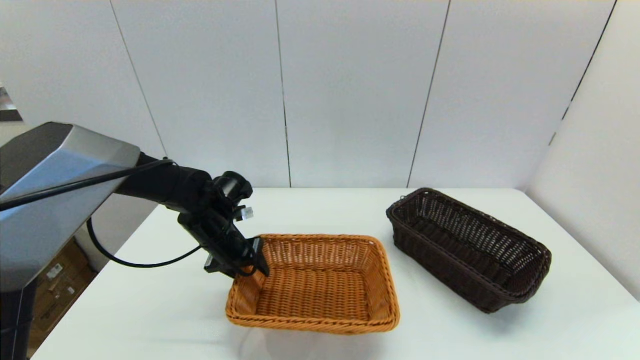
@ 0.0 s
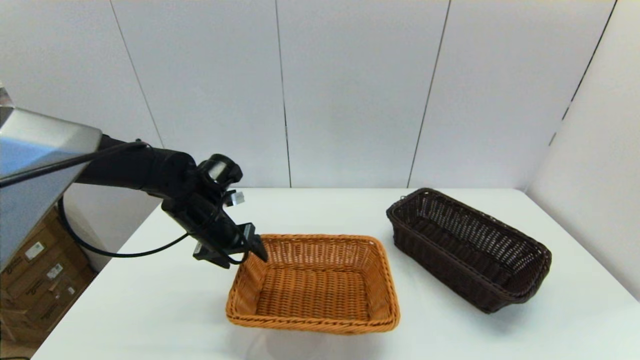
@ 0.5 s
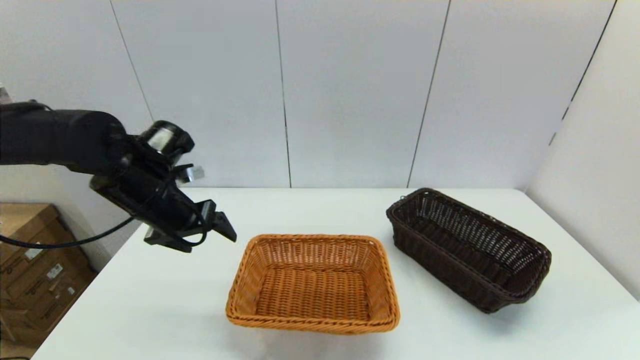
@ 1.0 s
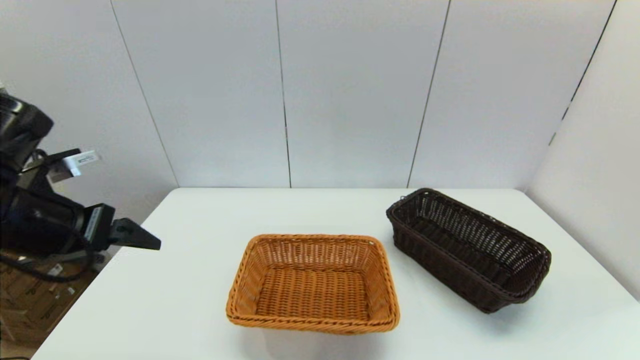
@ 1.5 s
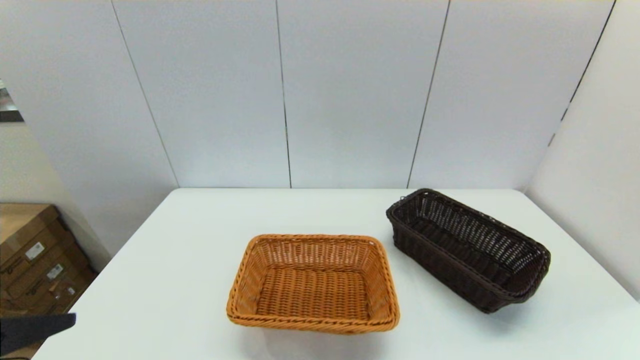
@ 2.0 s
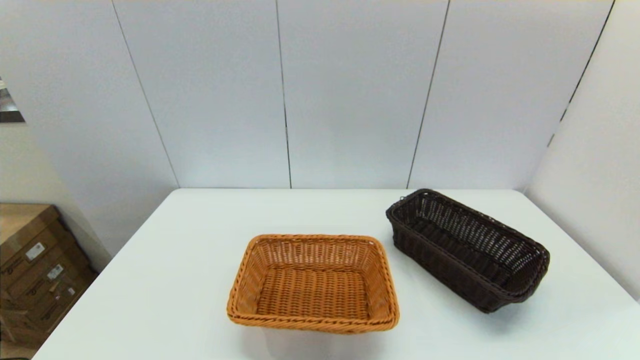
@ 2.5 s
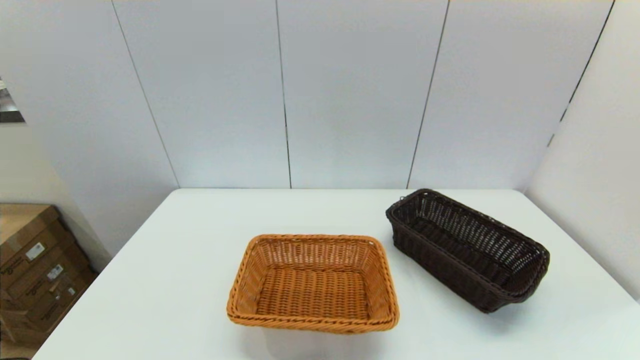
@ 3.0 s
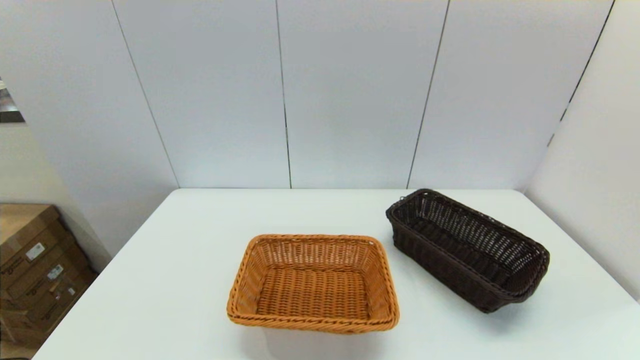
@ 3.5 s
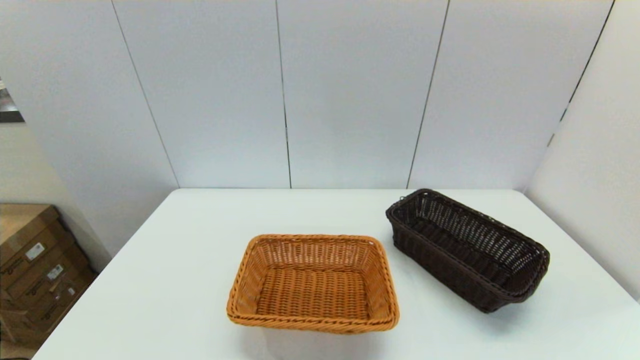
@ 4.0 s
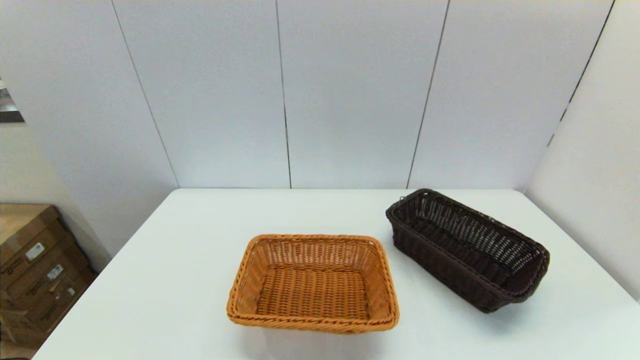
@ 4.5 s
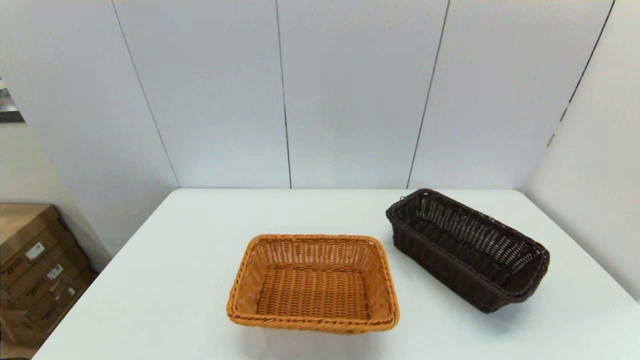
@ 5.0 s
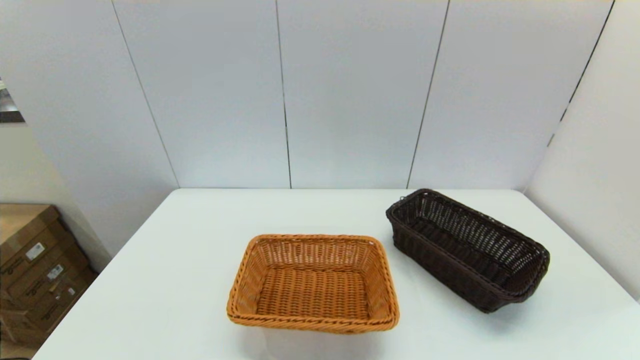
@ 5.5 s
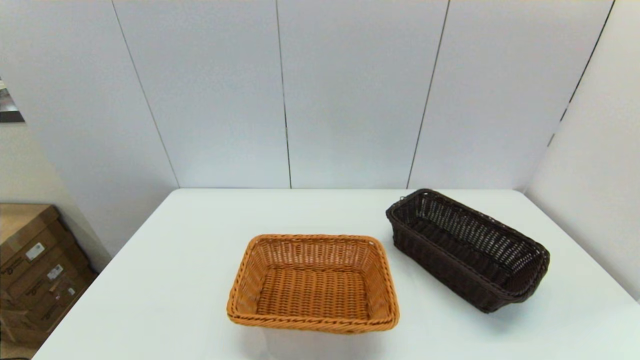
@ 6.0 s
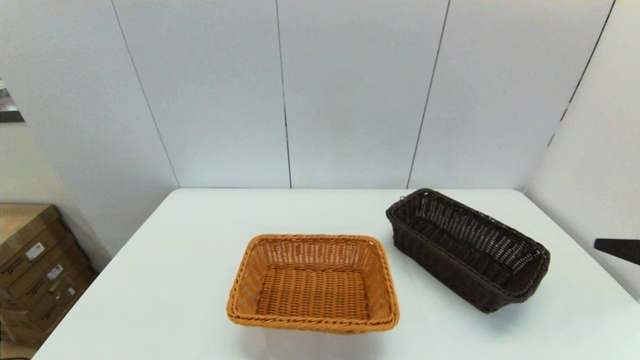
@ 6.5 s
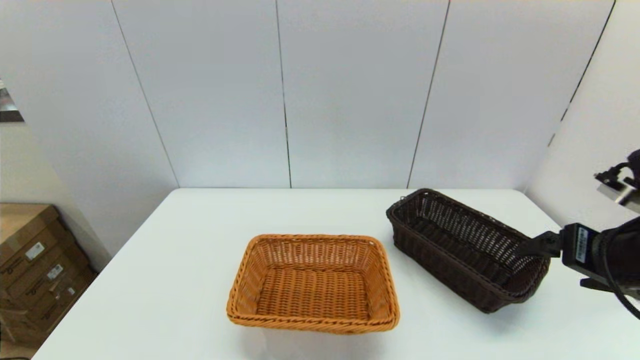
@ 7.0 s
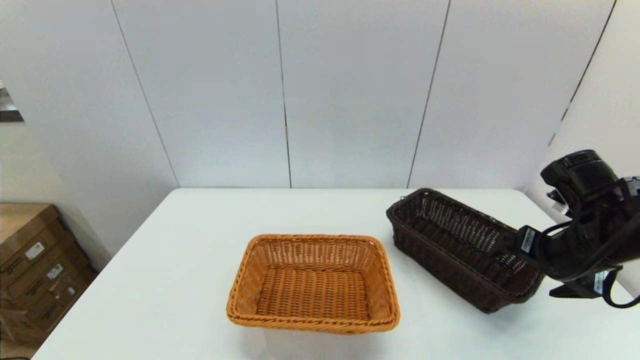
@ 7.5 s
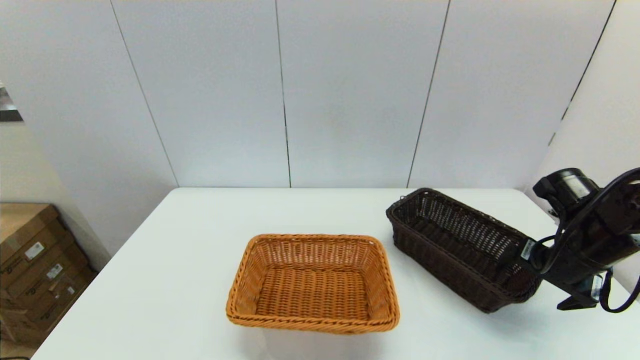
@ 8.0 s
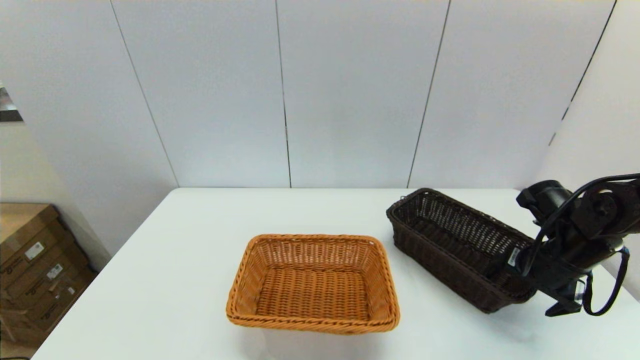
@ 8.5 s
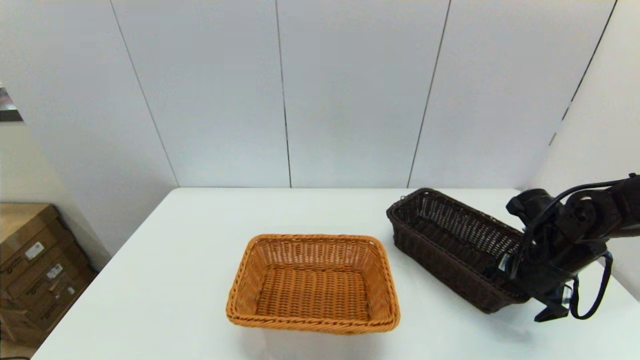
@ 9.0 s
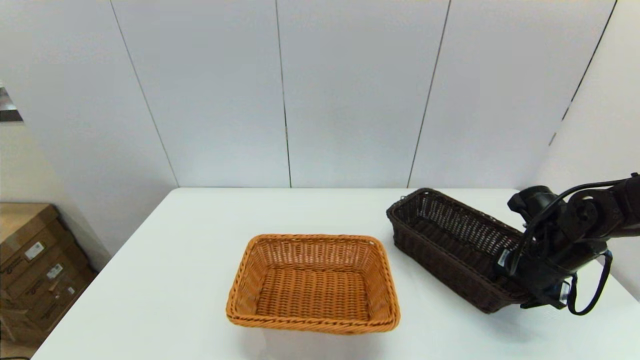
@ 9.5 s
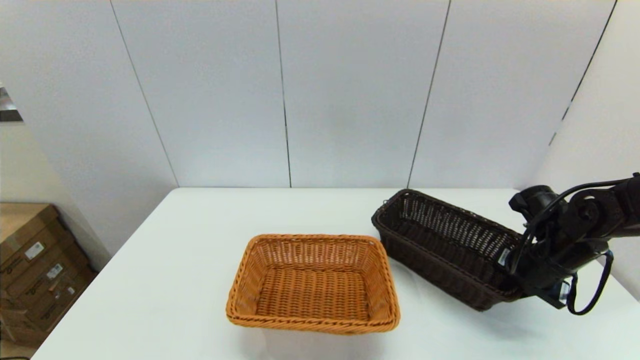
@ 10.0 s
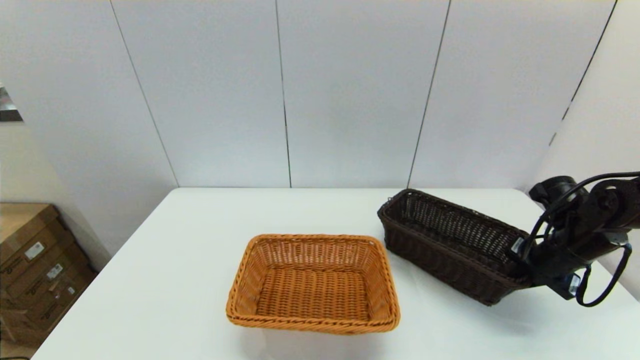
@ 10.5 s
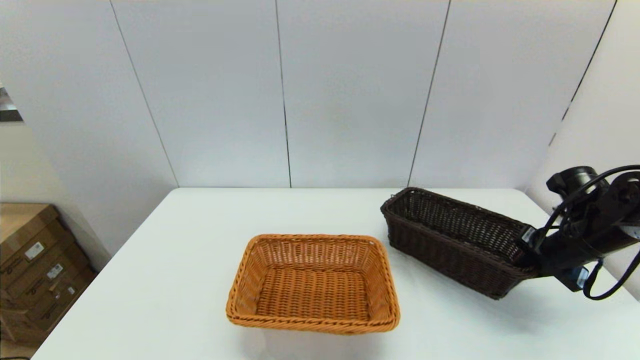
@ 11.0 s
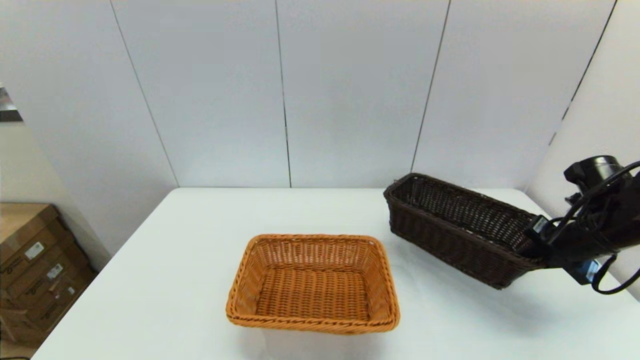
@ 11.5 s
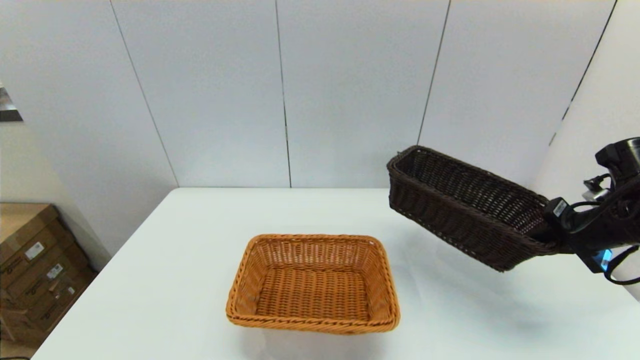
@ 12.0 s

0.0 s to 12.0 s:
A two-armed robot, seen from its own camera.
Task of the whole recording: stack a basket on top of another basket.
Step, 1.0 to 9.5 s: Grasp the dark basket with the right gripper.
0.0 to 2.0 s: The left gripper shifts approximately 35 cm backward, upward and to the left, and opens its fingers.
6.0 to 8.0 s: The right gripper is displaced forward by roughly 25 cm.
8.0 to 10.0 s: The right gripper moves some 5 cm, and closes up.
10.0 to 12.0 s: The right gripper goes approximately 10 cm upward.

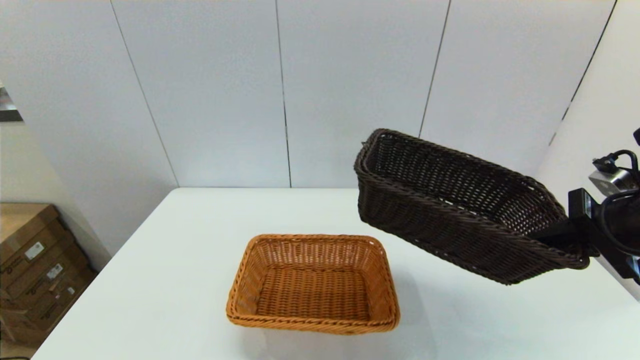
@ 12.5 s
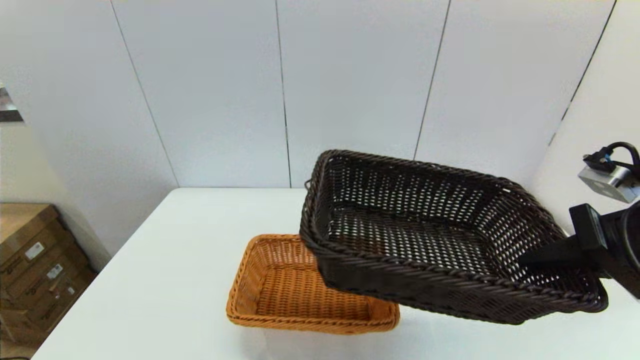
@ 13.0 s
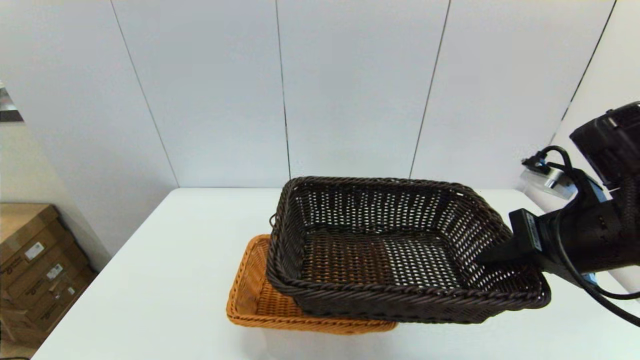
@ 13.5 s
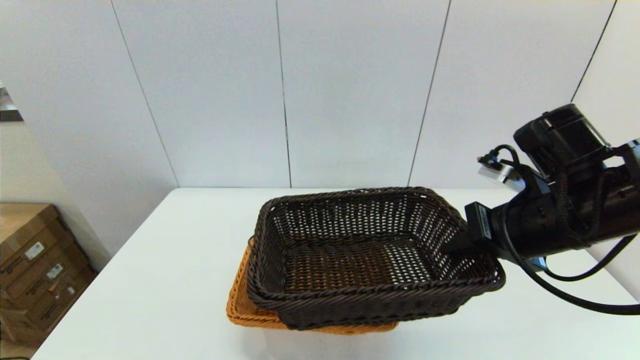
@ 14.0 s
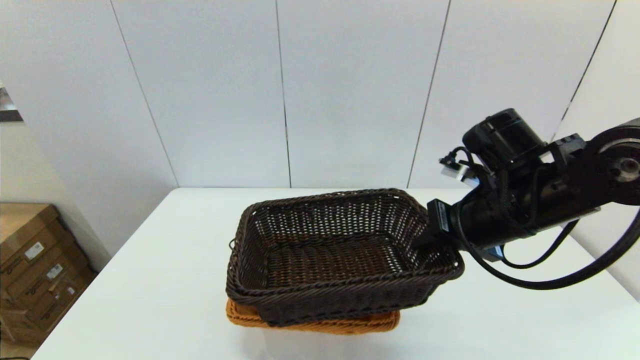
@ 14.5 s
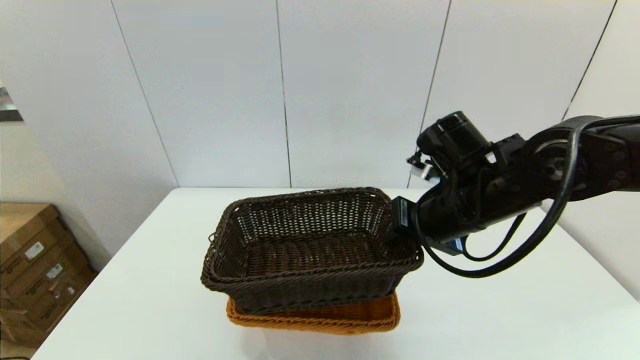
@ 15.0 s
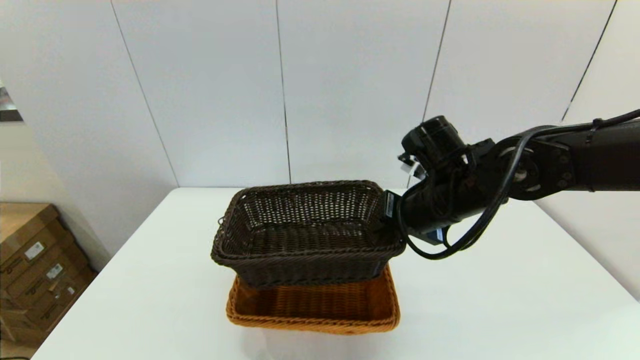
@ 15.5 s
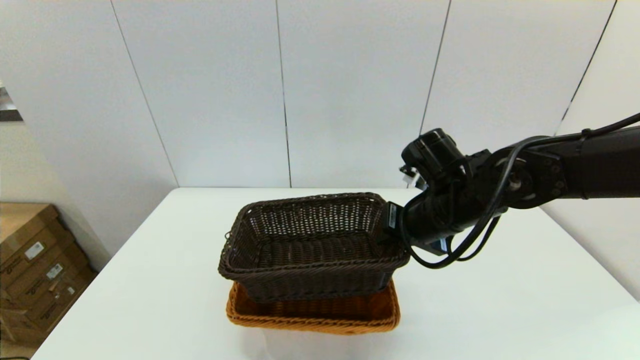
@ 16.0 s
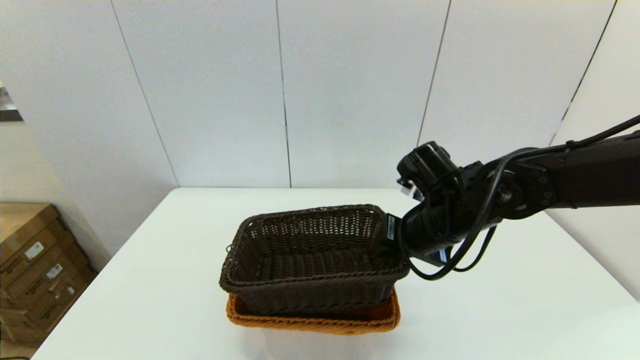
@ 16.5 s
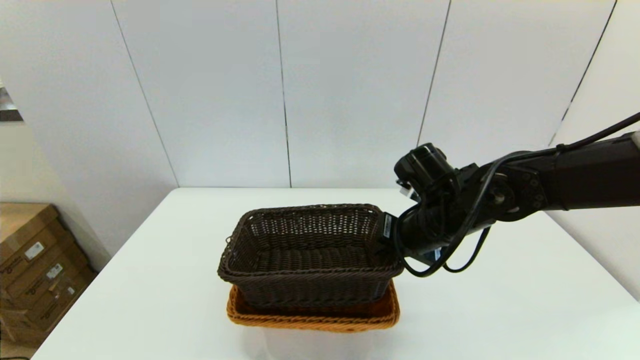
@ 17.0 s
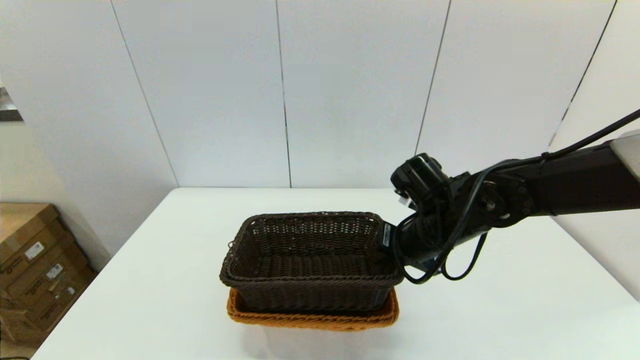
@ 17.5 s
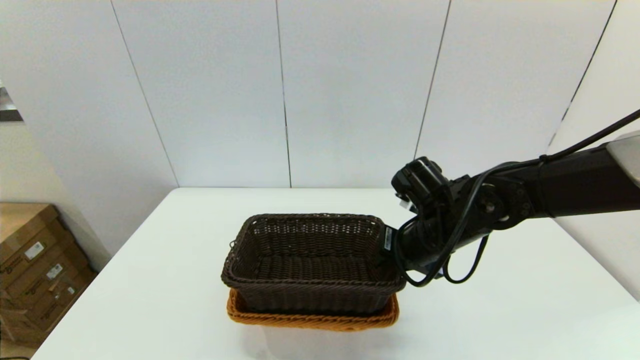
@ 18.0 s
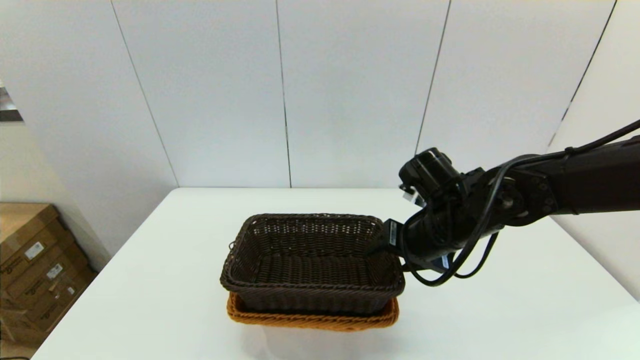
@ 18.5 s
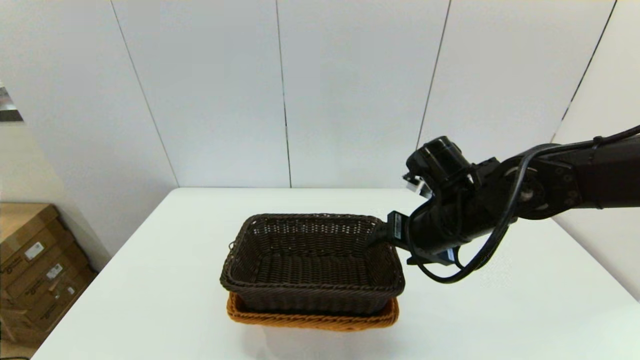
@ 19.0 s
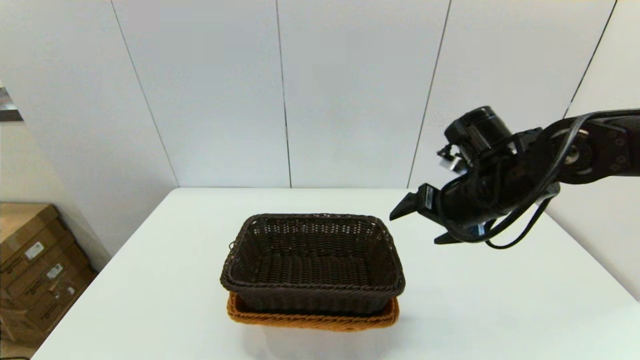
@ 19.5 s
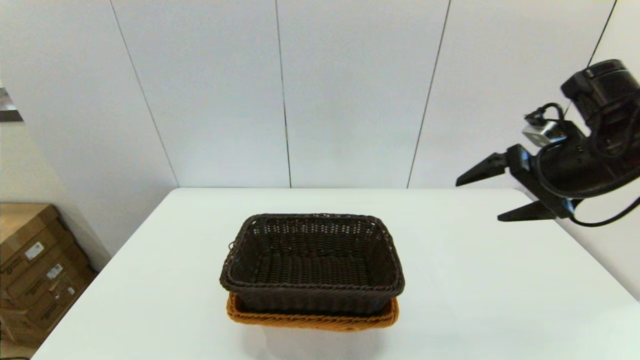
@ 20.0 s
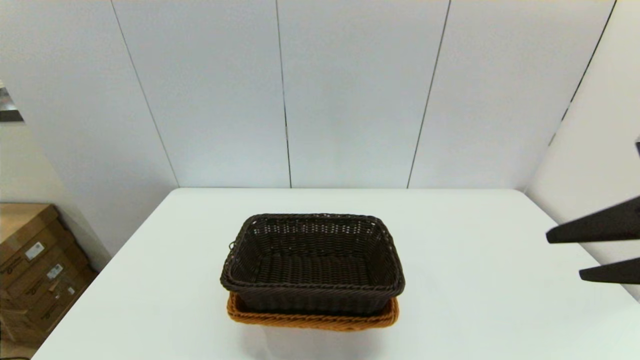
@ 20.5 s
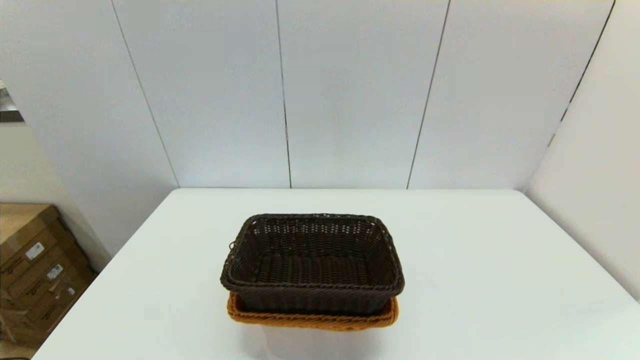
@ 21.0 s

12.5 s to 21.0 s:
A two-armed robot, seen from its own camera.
Task of the whole recording: stack a basket on top of another basket.
Step, 12.5 to 19.0 s: Place the dark basket into the light color basket with the right gripper.
12.5 to 14.5 s: The right gripper shifts approximately 15 cm to the left.
14.5 to 16.5 s: The right gripper moves downward, about 5 cm.
16.5 to 19.0 s: The right gripper opens.
19.0 to 21.0 s: The right gripper moves backward, to the right and upward, approximately 35 cm.
